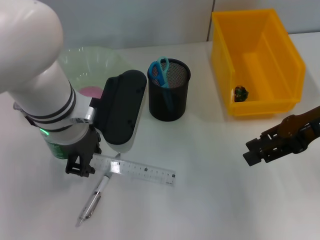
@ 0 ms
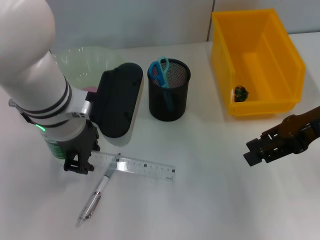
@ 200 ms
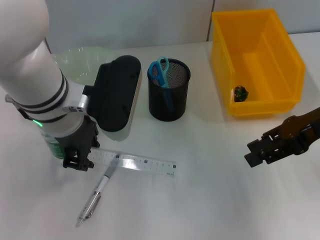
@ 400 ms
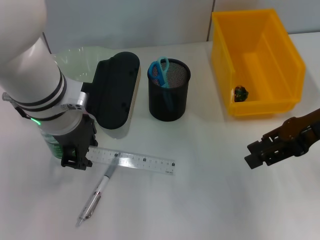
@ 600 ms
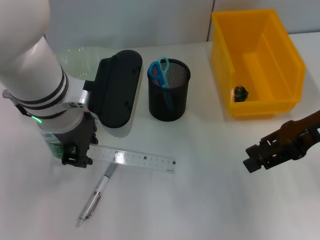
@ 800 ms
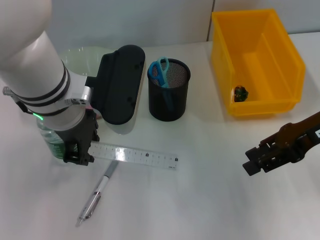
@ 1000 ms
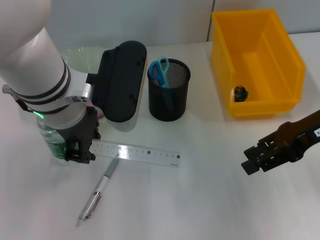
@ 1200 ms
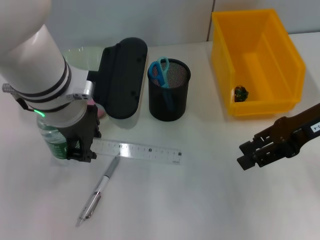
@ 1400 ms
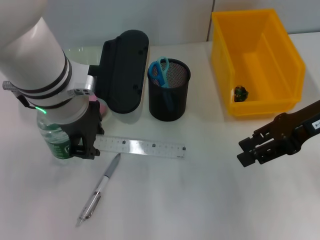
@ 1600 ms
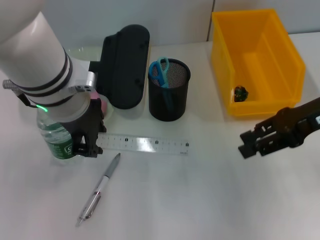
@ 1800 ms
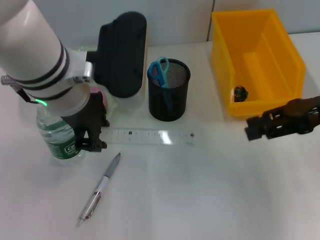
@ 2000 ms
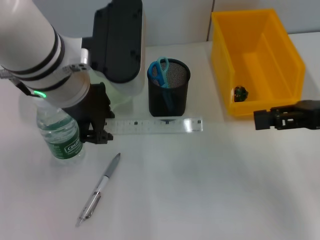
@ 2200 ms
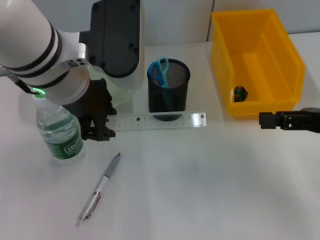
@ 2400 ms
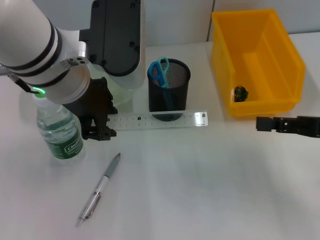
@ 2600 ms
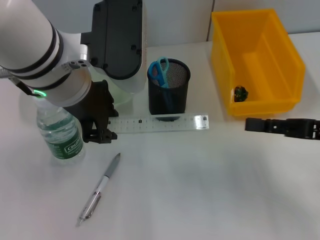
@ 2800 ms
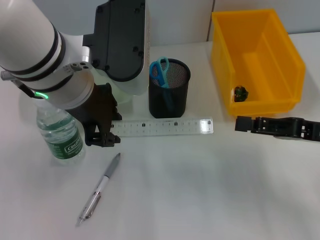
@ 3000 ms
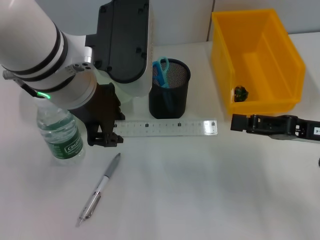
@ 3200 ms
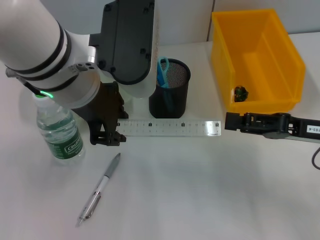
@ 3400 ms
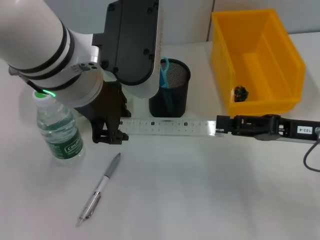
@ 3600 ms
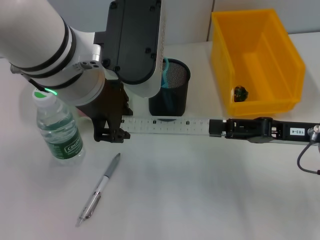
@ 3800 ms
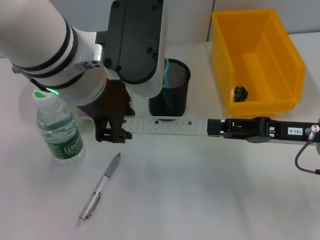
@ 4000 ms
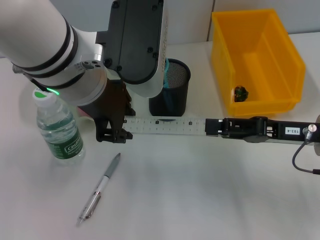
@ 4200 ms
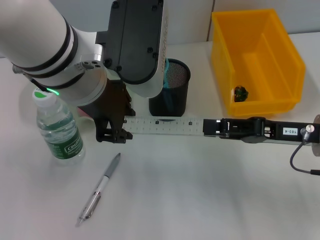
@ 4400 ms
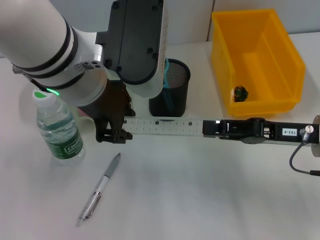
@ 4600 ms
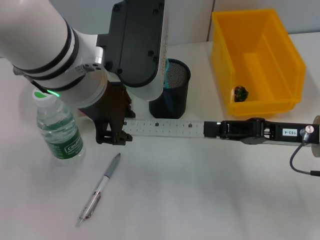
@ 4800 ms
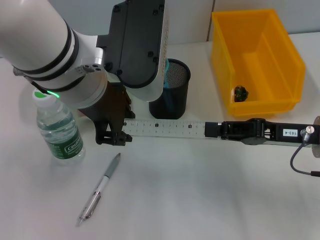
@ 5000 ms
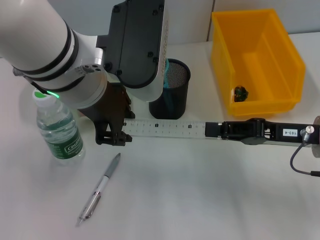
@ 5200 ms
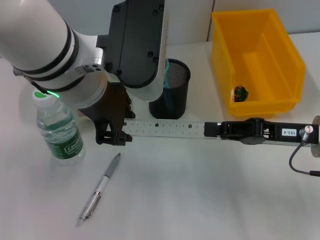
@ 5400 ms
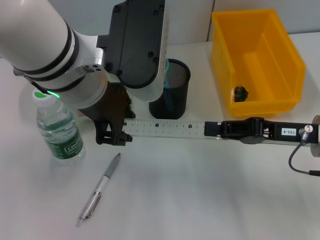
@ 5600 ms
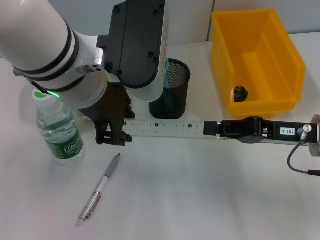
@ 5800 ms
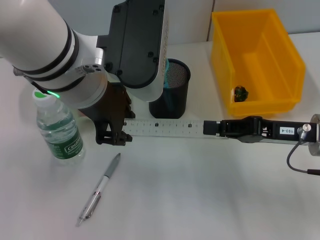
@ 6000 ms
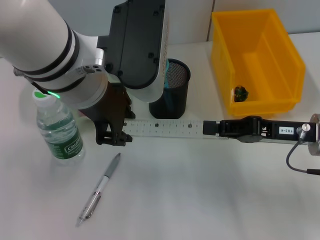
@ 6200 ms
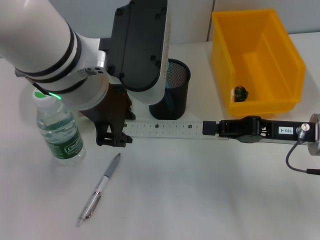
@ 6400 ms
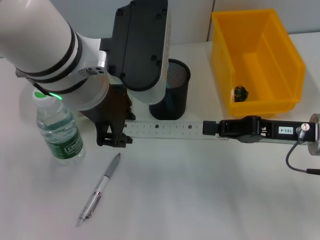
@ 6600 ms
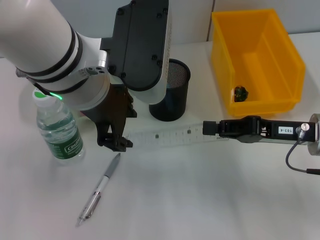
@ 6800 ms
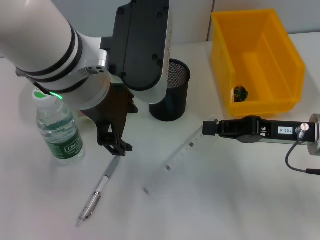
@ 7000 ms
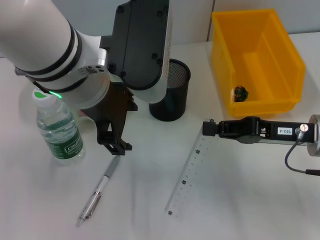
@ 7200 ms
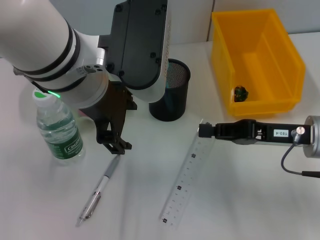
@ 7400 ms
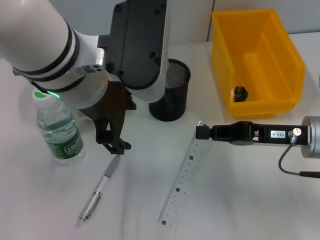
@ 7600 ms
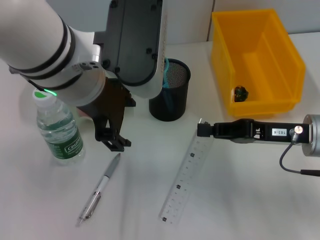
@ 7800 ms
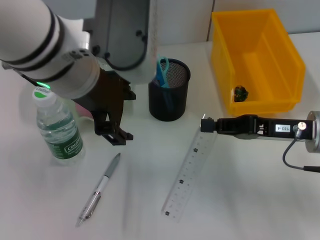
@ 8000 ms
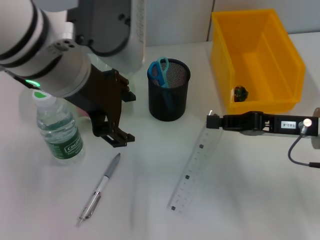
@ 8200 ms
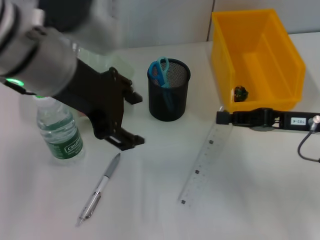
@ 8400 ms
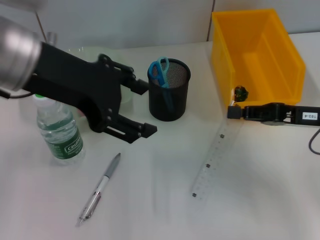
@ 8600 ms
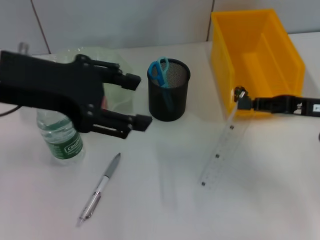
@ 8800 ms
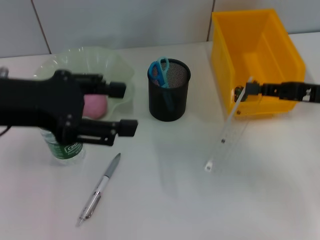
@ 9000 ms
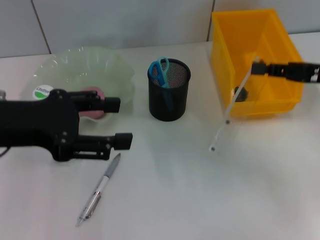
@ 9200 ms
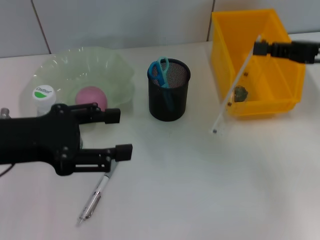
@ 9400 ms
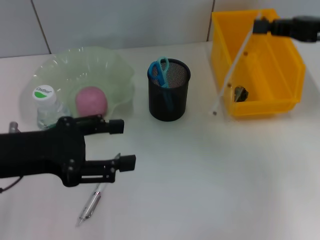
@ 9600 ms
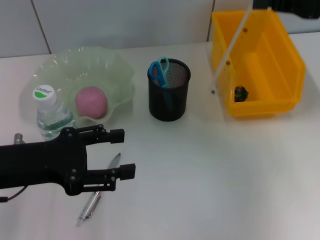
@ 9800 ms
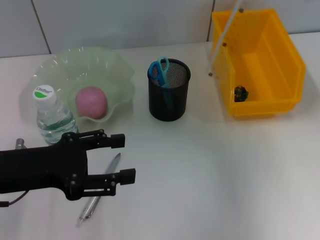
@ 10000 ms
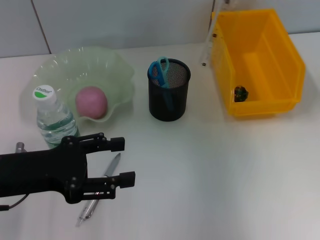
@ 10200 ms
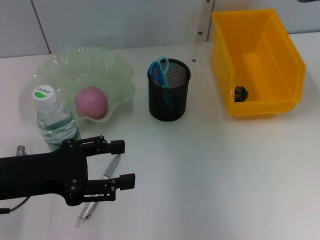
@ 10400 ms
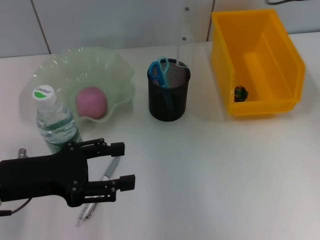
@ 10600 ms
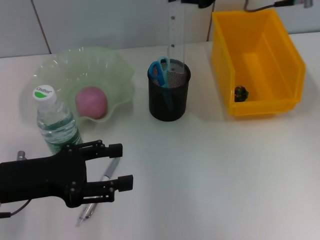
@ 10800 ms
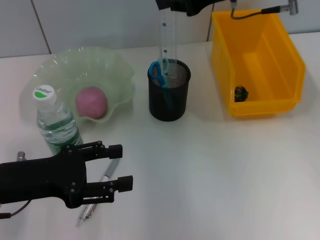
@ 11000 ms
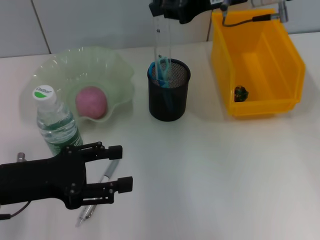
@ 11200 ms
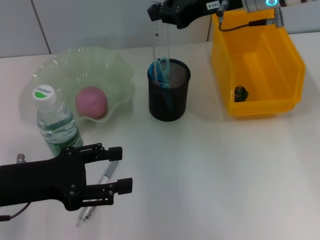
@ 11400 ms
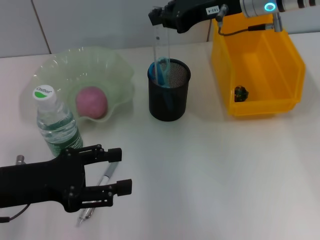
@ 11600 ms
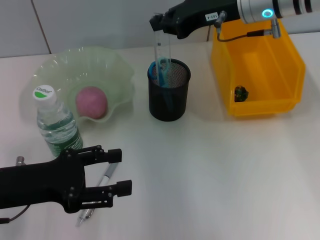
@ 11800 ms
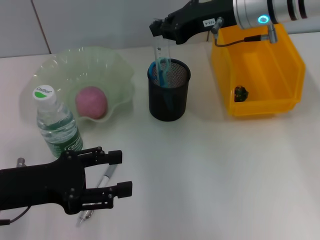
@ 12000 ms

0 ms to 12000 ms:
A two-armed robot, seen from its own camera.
Step, 0 ms to 7800 ms: Pass the ruler from the left hand to the right hand.
0 ms to 1600 ms: The grippers move only a little.
1600 ms to 3000 ms: The right gripper goes approximately 10 cm downward and backward.
3000 ms to 4400 ms: The grippers move only a little.
4400 ms to 6000 ms: The right gripper closes up.
6000 ms to 7600 ms: The left gripper opens up.
7600 ms to 9000 ms: The left gripper goes some 15 cm to the left, while the right gripper shifts approximately 5 cm to the right.
9000 ms to 10400 ms: The right gripper moves upward, forward and to the left, some 20 cm. Meanwhile the left gripper travels downward by some 10 cm.
10400 ms to 12000 ms: The right gripper heads to the left and downward, covering about 10 cm.

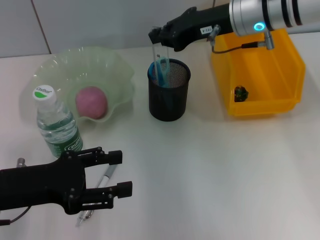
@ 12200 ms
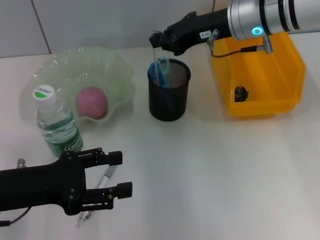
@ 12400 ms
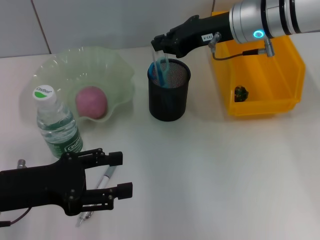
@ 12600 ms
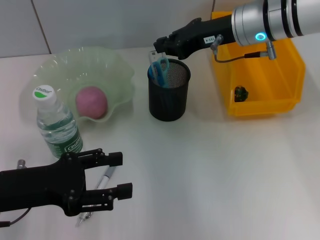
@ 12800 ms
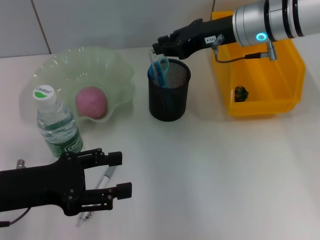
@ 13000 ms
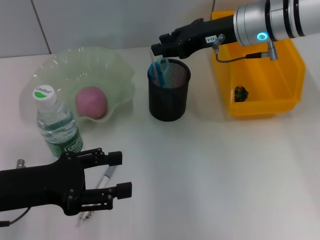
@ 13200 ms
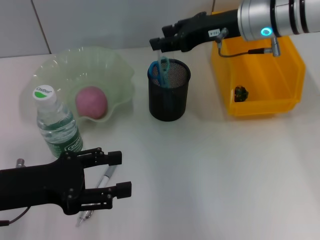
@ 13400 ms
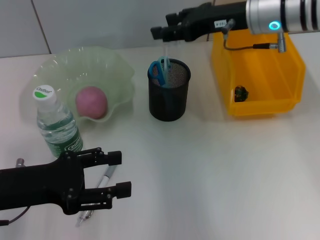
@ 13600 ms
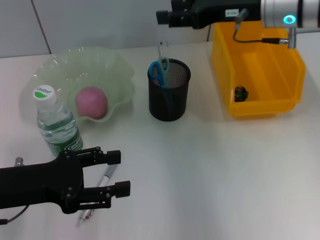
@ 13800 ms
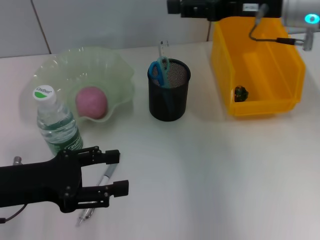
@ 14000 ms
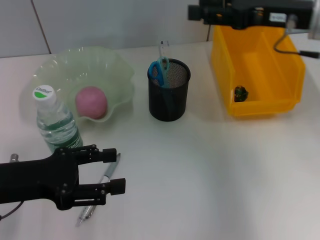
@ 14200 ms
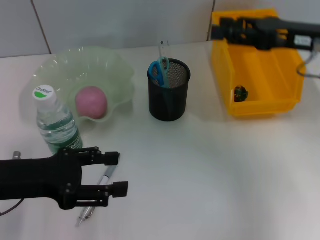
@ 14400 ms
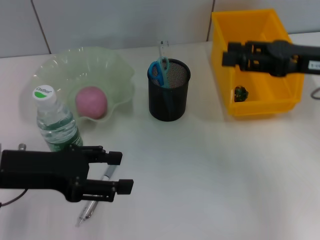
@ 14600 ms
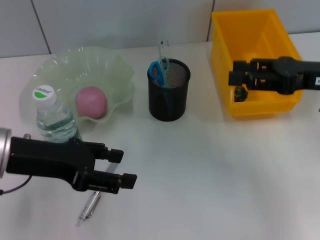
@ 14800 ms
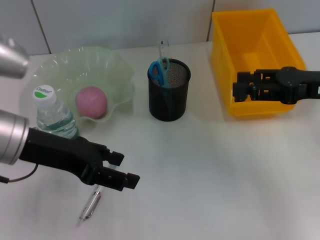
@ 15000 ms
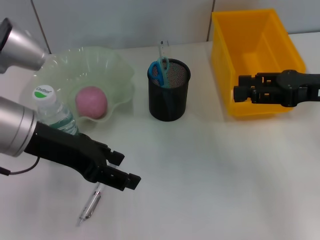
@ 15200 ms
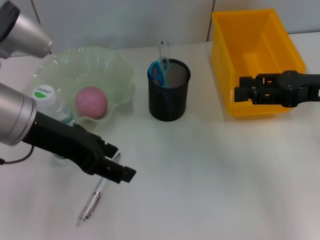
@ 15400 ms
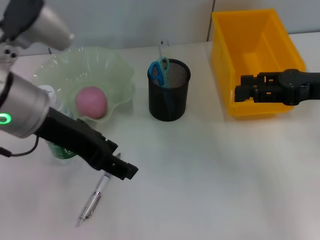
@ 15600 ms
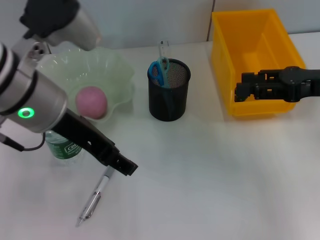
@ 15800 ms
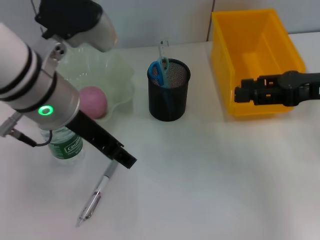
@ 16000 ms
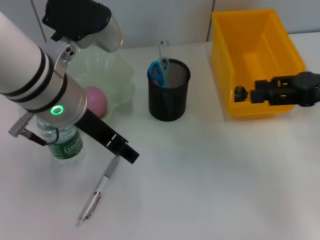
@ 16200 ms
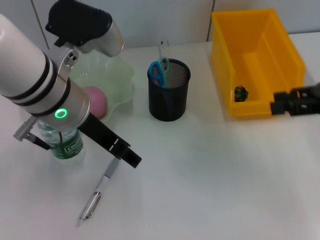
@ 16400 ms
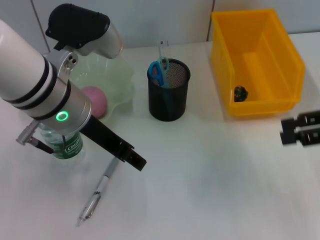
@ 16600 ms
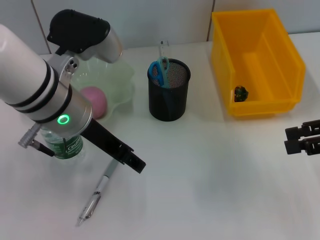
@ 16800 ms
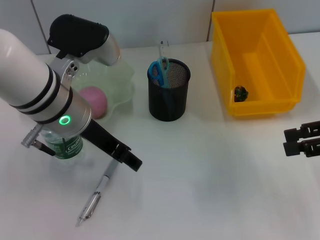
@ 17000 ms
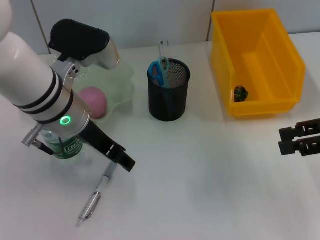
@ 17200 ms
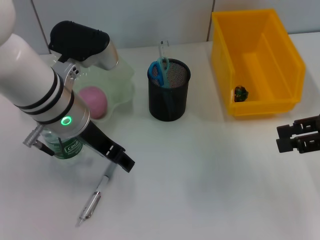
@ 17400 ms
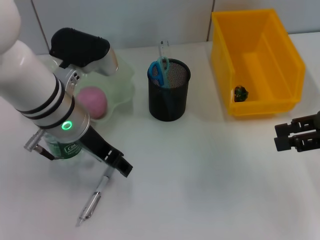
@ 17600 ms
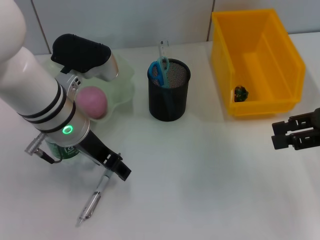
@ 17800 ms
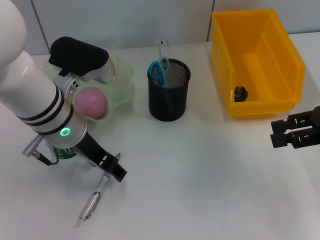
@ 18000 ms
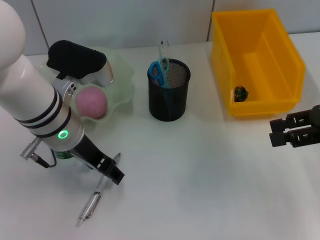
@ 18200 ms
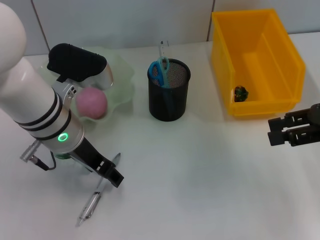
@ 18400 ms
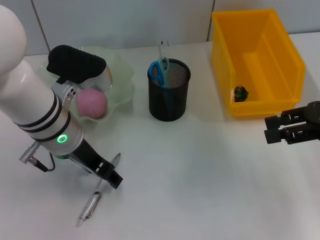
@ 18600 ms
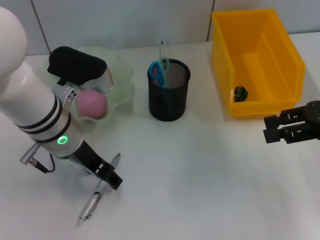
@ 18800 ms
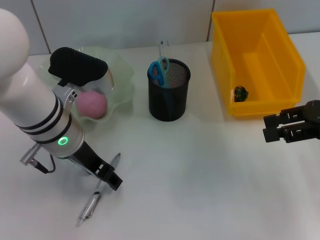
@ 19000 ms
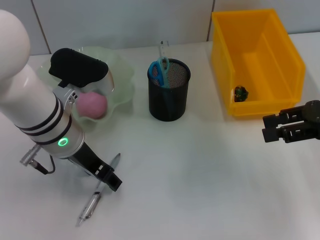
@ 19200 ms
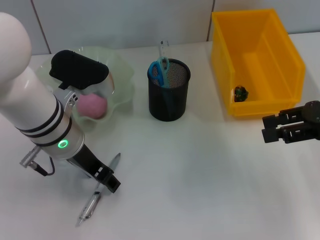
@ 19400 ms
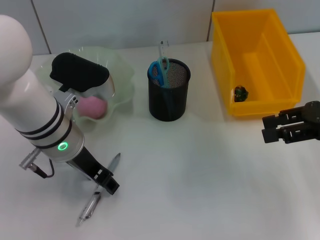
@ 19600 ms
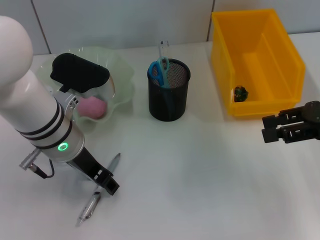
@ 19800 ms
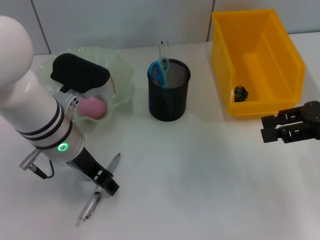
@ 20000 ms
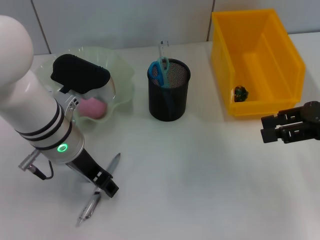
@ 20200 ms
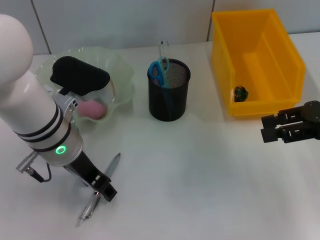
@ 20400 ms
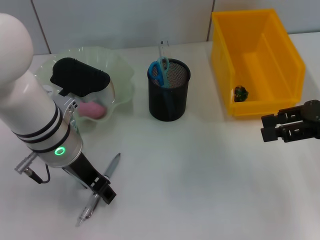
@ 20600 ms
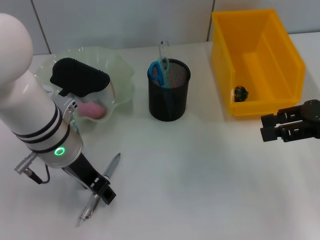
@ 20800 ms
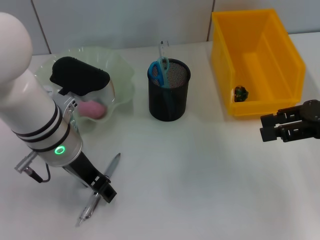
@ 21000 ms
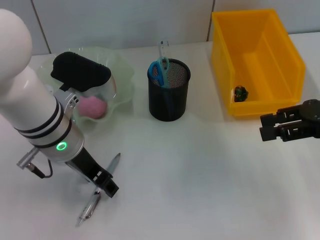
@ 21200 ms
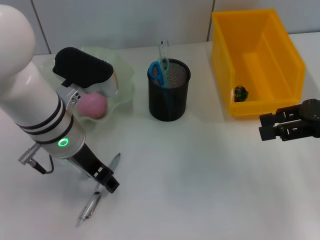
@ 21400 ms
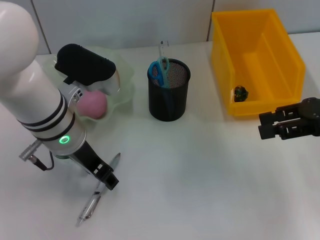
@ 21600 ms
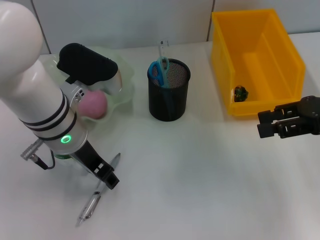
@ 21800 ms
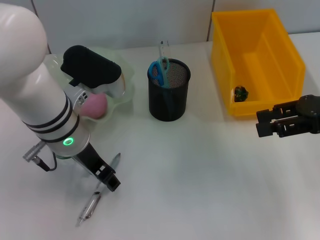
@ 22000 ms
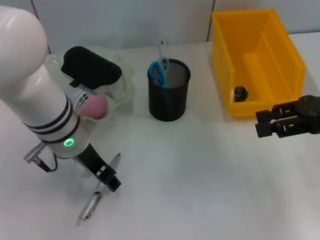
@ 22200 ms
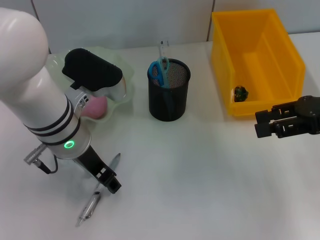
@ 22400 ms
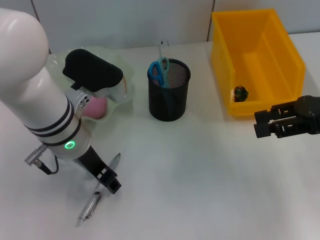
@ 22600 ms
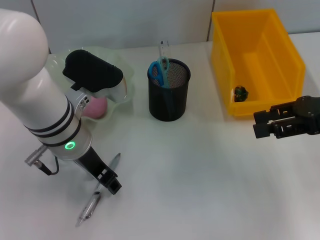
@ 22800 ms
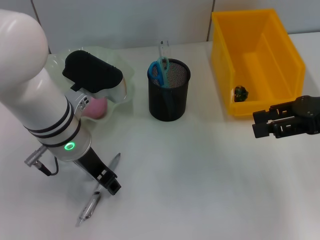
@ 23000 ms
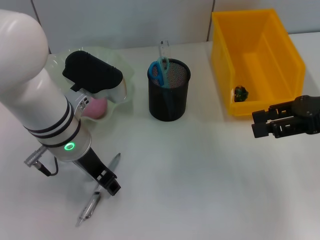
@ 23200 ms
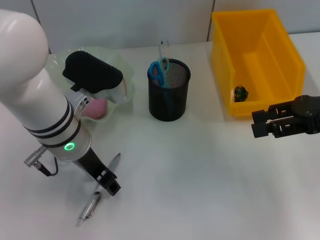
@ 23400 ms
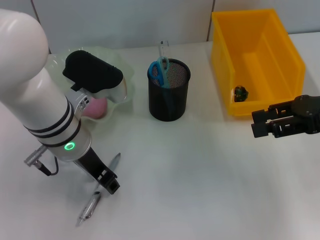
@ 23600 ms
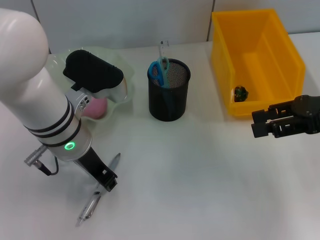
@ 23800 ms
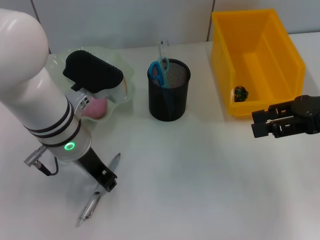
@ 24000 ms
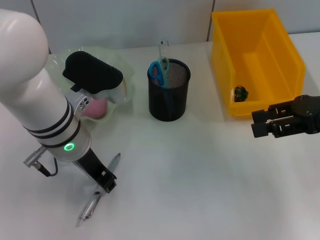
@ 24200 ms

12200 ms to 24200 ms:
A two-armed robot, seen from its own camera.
12200 ms to 13800 ms: The right gripper opens up.
13800 ms to 15200 ms: The right gripper goes approximately 15 cm to the right, backward and downward, while the left gripper travels upward, to the right and forward by some 10 cm.
15200 ms to 16600 ms: Both grippers travel together to the right, approximately 5 cm.
16600 ms to 18200 ms: The left gripper moves downward, roughly 5 cm.
18200 ms to 19800 ms: Both grippers stay about where they are.
19800 ms to 21200 ms: The two grippers keep their place.
21200 ms to 22600 ms: Both grippers stay about where they are.
22600 ms to 24200 ms: The left gripper closes up.
